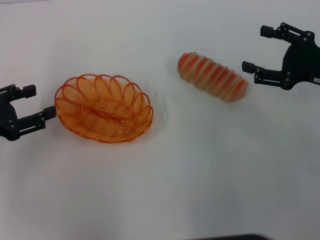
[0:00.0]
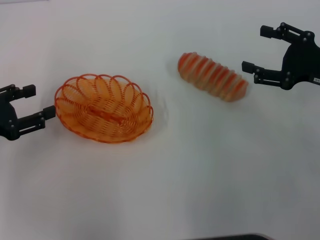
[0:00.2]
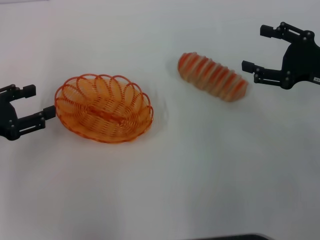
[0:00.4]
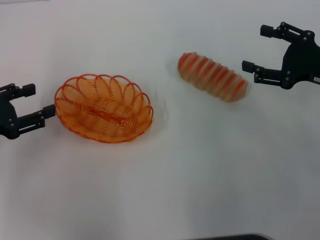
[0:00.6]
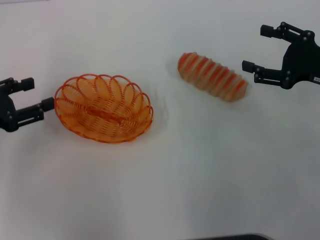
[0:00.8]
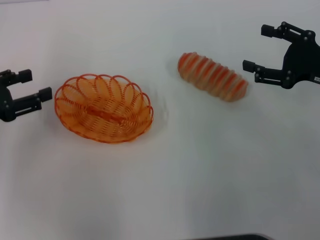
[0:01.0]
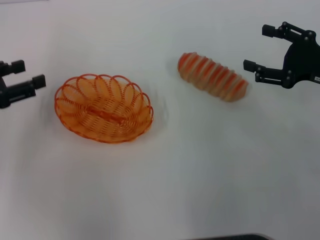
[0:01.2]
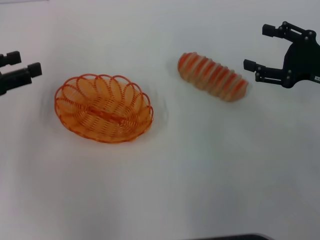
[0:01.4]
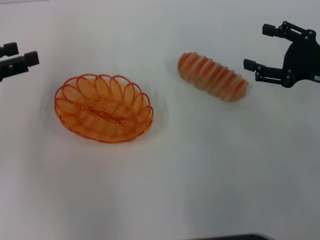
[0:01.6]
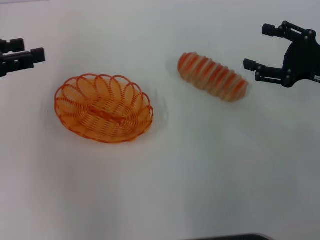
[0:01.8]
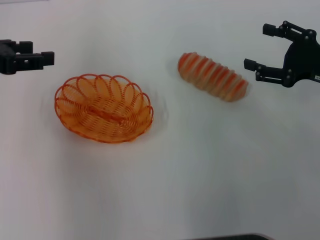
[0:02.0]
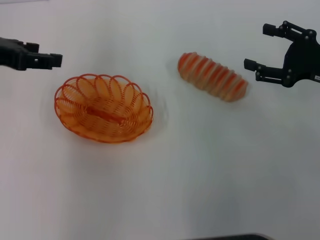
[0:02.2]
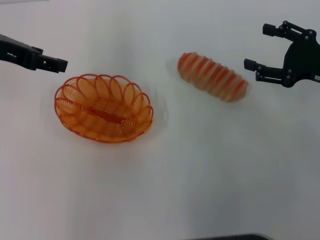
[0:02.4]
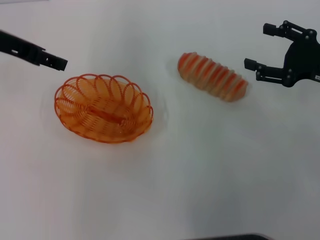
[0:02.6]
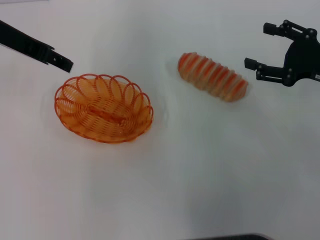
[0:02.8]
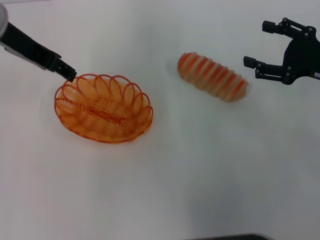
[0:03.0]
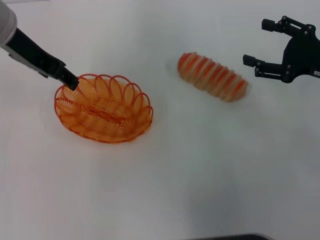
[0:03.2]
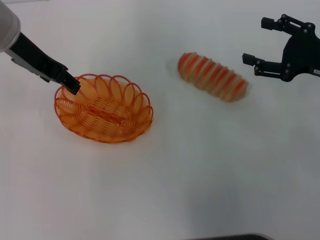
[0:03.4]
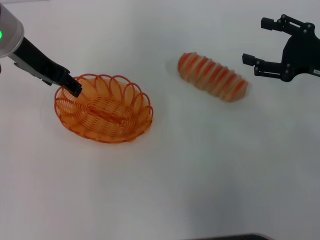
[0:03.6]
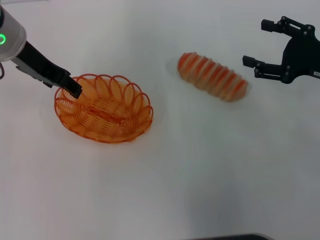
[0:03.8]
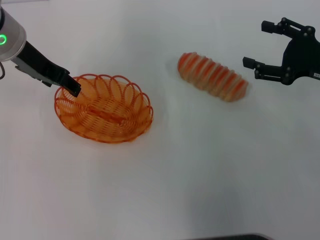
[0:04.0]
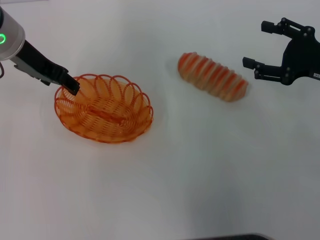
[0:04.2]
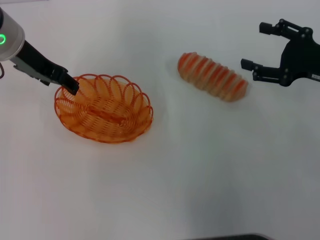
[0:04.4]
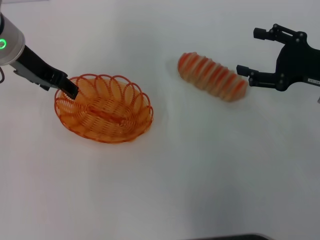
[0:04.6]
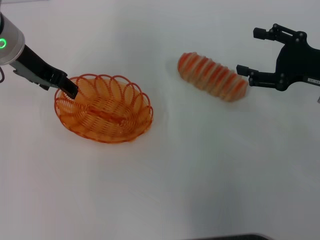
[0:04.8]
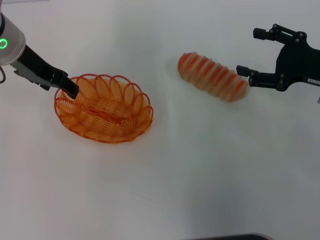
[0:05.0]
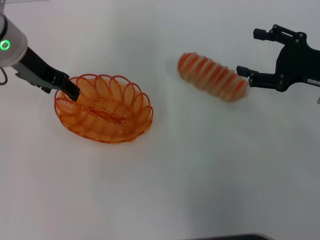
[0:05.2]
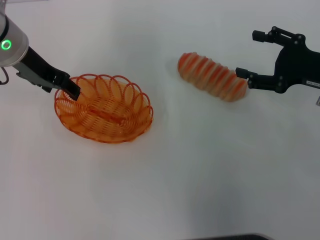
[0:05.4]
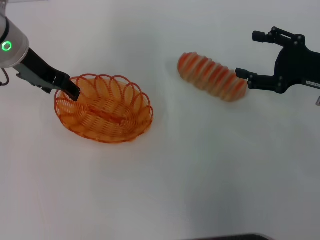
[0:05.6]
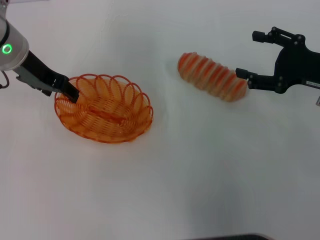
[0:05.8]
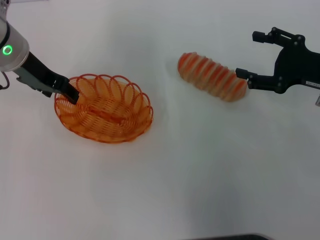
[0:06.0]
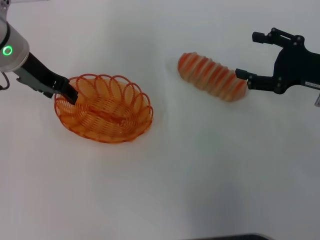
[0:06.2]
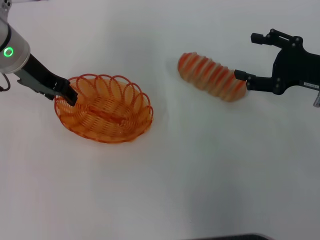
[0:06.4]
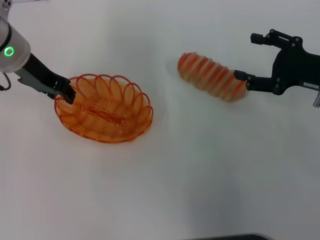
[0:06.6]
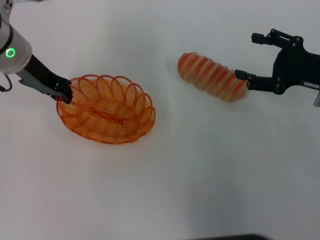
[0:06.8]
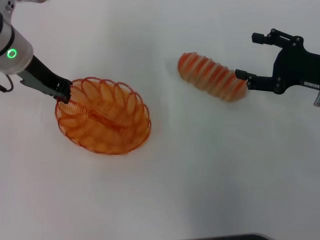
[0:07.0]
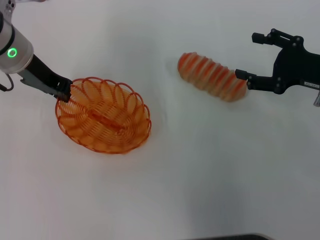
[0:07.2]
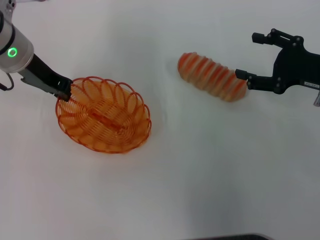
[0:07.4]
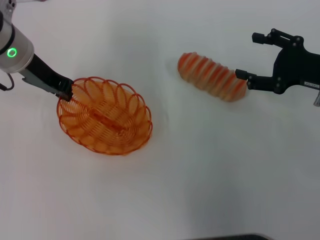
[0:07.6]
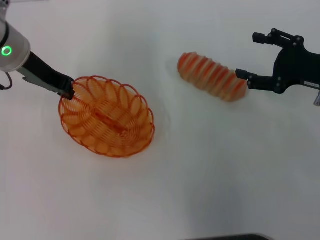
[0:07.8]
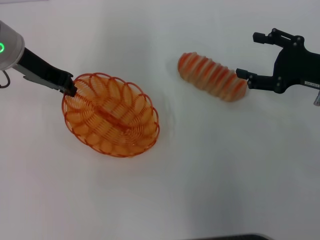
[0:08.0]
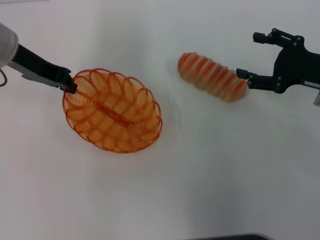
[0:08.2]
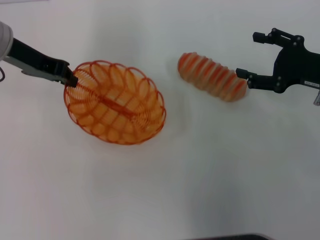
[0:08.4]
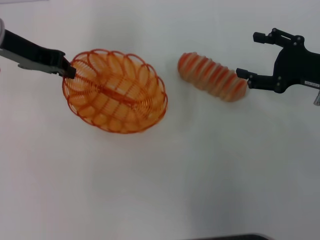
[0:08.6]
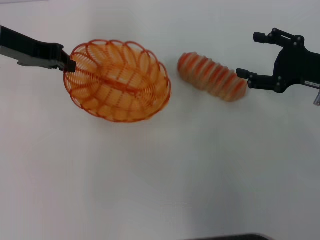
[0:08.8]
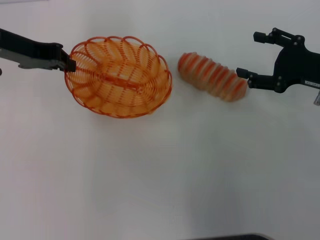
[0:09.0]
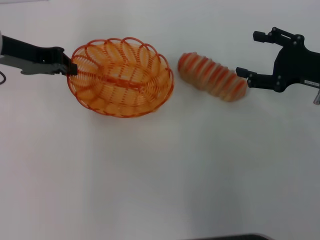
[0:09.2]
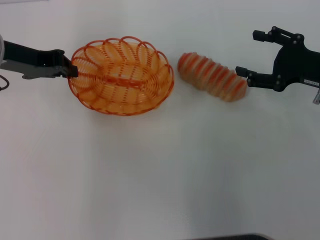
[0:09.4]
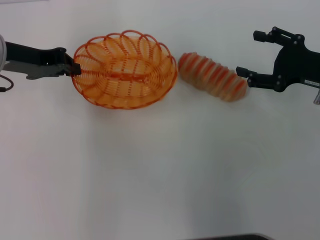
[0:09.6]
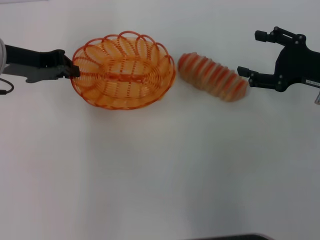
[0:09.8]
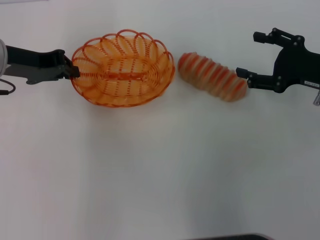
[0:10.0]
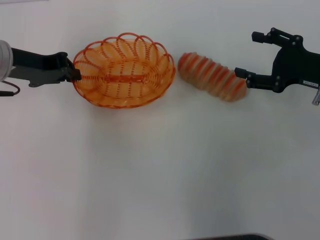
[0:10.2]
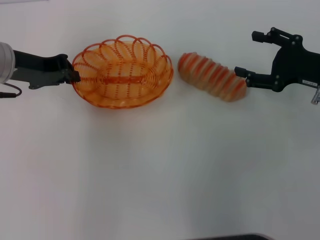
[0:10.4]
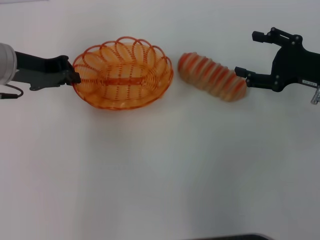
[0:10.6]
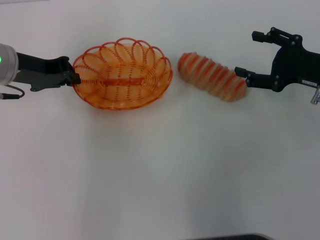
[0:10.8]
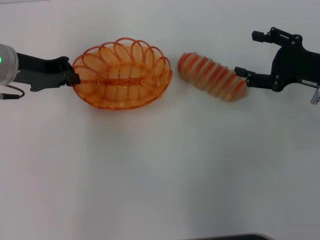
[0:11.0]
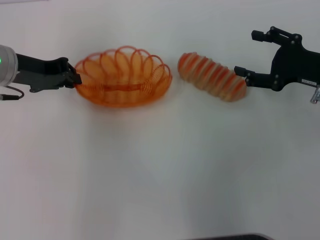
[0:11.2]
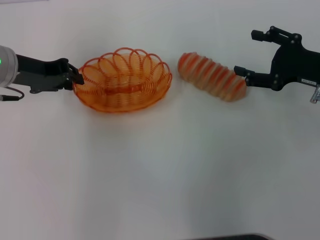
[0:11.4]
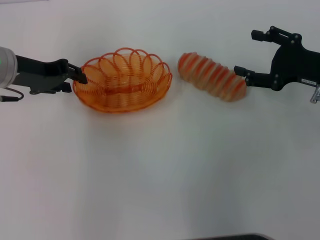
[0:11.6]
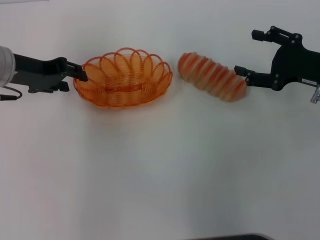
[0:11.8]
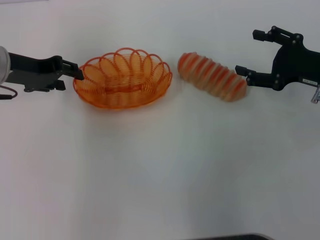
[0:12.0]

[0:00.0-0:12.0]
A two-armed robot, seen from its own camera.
Step, 0:00.0 to 0:08.2: Pick up the basket with the left gripper.
0:00.0 to 0:01.6: The left gripper goes some 5 cm upward.
0:01.6 to 0:03.0: The left gripper heads to the right, forward and upward, covering some 15 cm.
0:03.0 to 0:04.4: The grippers make only small movements.
0:04.4 to 0:06.0: The grippers move only a little.
0:06.0 to 0:07.6: The left gripper closes its fingers.
0:07.6 to 0:09.0: The left gripper ends up approximately 5 cm from where it was.
0:09.0 to 0:10.4: The grippers stay close to where they were, moving slightly.
0:10.4 to 0:12.0: The left gripper opens up.

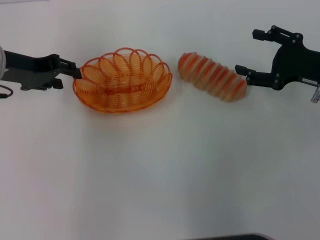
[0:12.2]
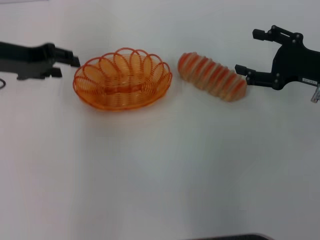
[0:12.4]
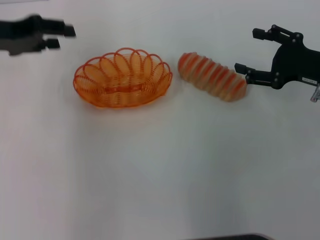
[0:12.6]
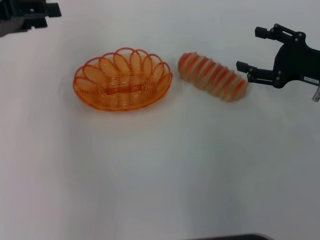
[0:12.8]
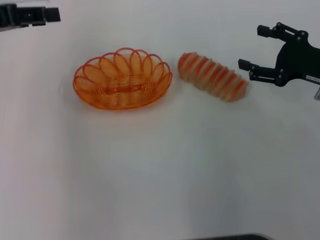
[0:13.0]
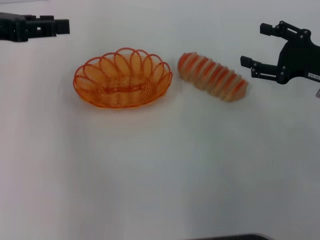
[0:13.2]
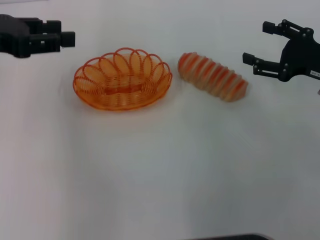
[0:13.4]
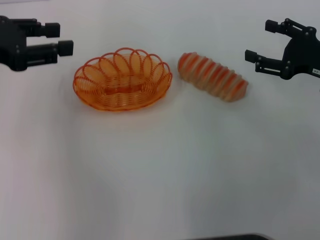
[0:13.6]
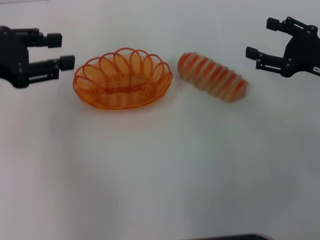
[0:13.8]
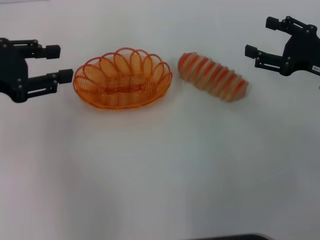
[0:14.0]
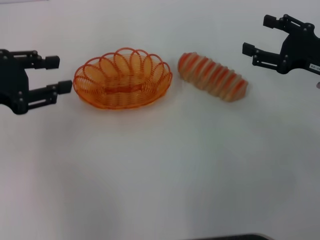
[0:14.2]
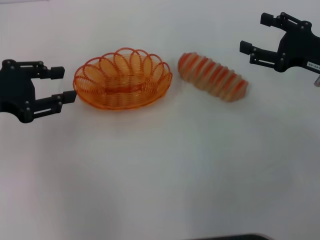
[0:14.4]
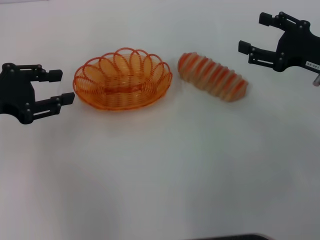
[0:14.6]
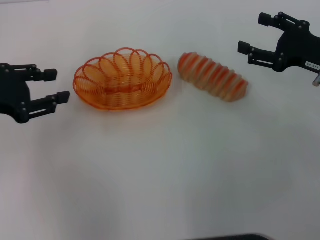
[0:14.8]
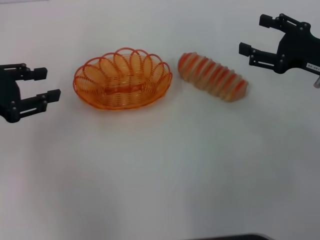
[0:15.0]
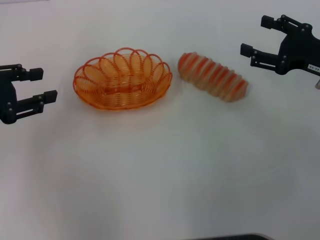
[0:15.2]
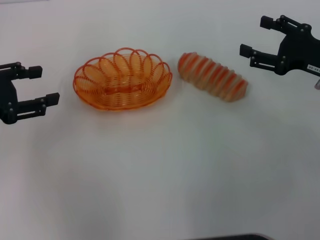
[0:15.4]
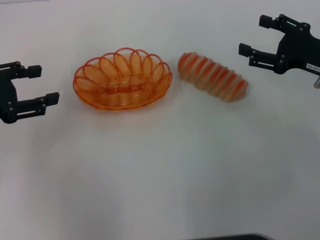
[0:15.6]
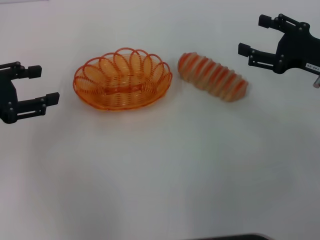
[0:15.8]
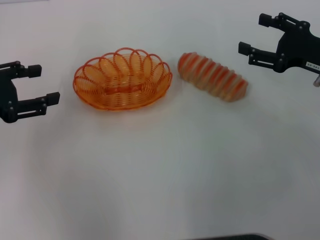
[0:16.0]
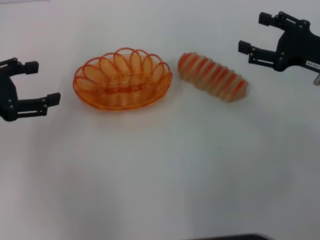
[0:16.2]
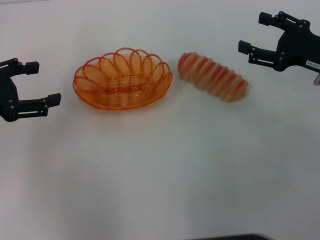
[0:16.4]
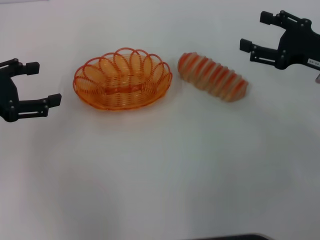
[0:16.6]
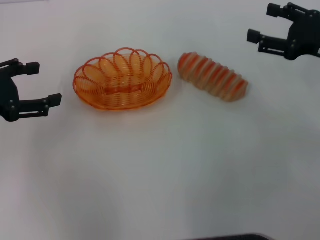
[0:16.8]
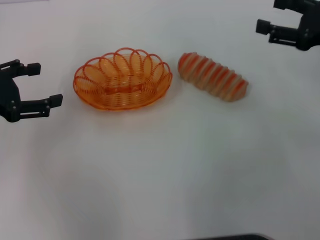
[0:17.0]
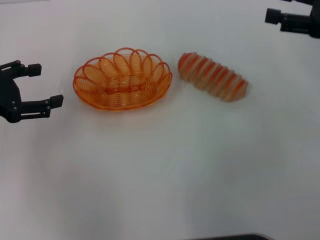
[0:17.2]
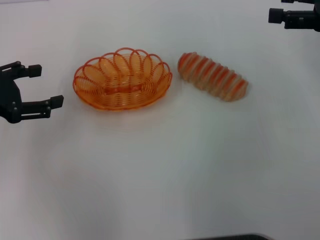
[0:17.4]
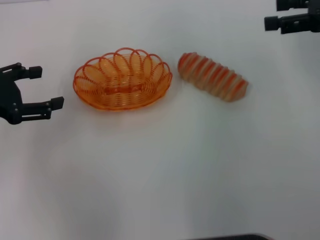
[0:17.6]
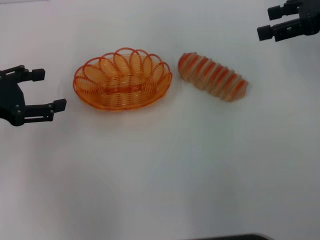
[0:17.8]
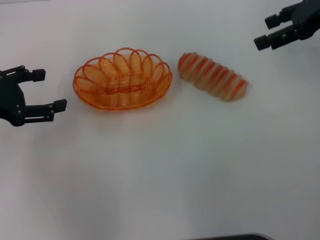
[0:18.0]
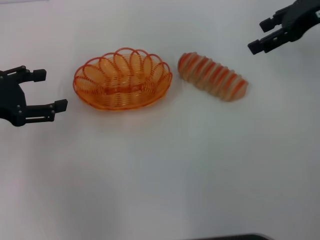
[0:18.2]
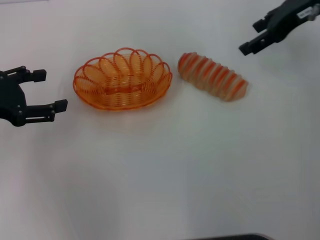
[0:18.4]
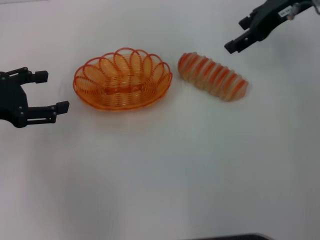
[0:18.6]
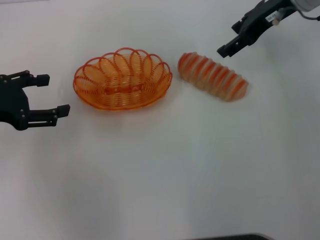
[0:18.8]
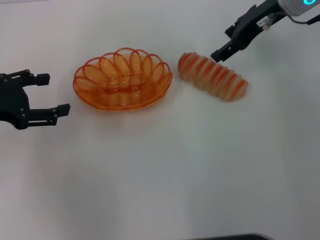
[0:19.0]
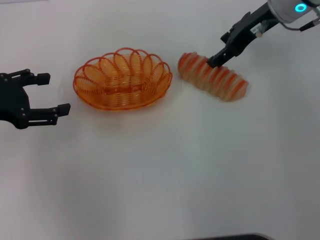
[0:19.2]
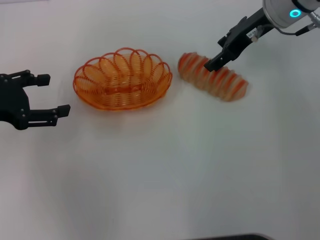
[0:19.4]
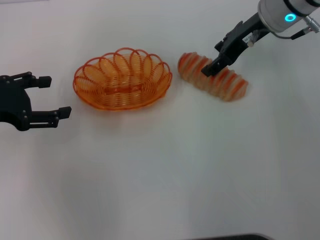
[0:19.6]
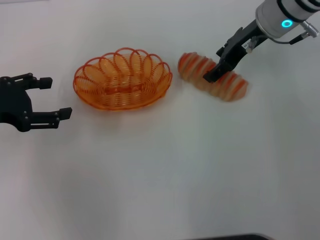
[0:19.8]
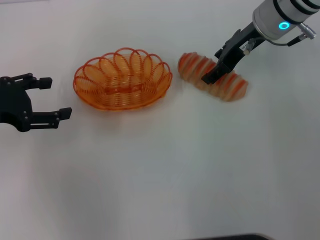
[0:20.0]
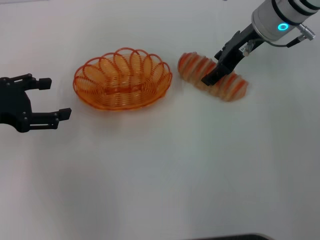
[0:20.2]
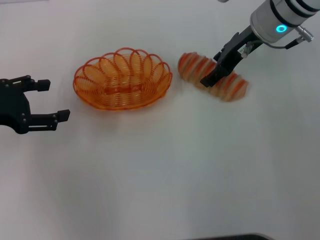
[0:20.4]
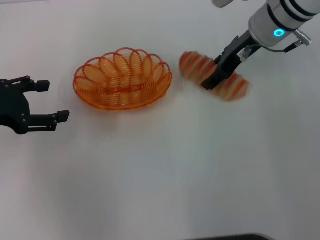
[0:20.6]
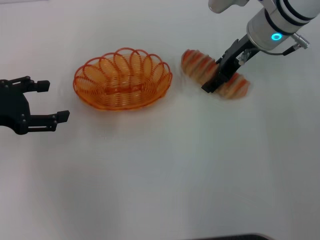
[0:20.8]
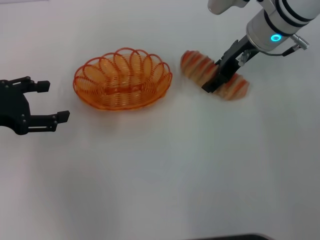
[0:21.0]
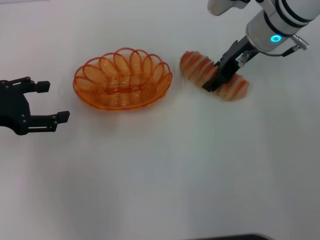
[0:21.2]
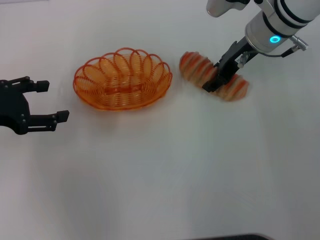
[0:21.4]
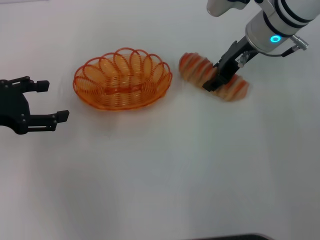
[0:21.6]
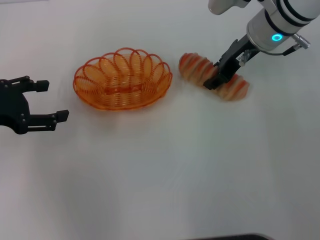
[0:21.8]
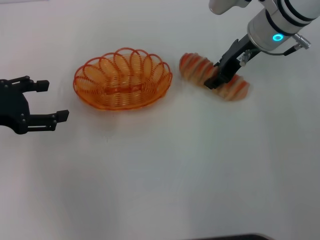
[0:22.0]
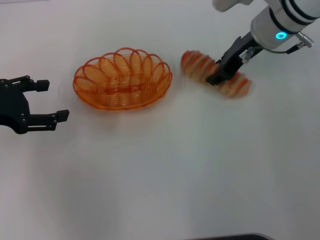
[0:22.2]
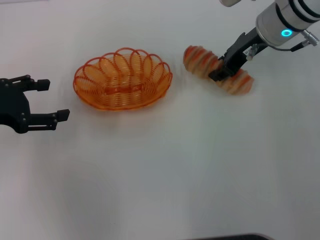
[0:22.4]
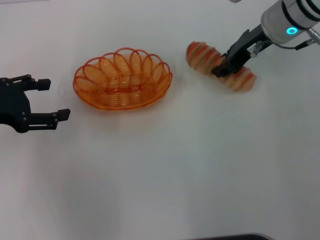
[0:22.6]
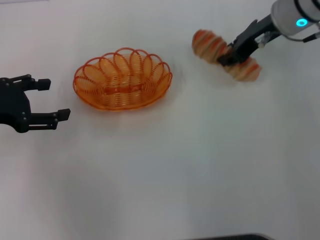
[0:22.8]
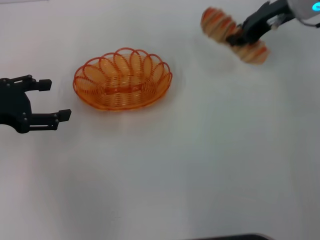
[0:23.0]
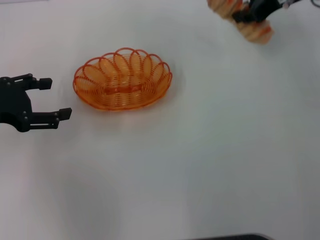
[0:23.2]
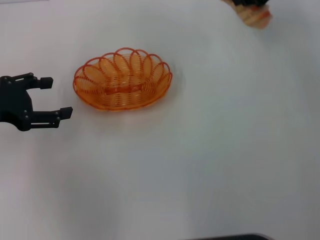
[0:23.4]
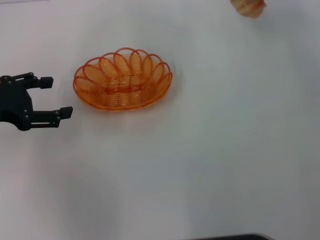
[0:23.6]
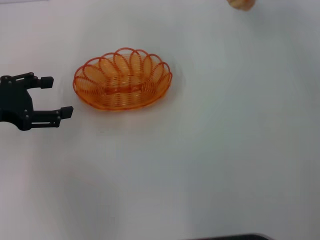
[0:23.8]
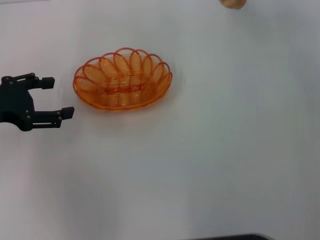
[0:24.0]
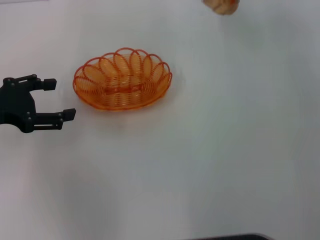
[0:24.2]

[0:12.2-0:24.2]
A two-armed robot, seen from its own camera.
Step, 0:12.8 to 0:22.6: Pick up the long bread with the right gripper.
0:12.2 to 0:13.8: The left gripper moves backward, roughly 5 cm.
0:13.8 to 0:15.2: The left gripper changes place by roughly 5 cm.
0:15.2 to 0:16.6: The left gripper opens.
0:16.6 to 0:18.2: The right gripper heads upward and forward, covering approximately 15 cm.
0:18.2 to 0:19.8: The right gripper is displaced to the left and downward by some 10 cm.
0:19.8 to 0:21.2: The grippers stay close to where they were, moving slightly.
0:21.2 to 0:22.6: The right gripper closes.
0:22.6 to 0:24.2: The right gripper travels upward by some 10 cm.
